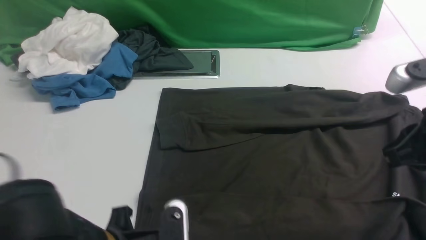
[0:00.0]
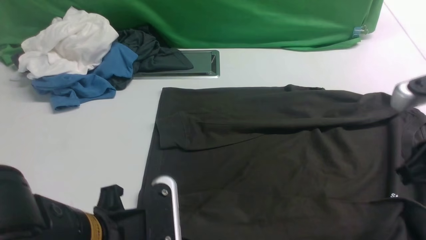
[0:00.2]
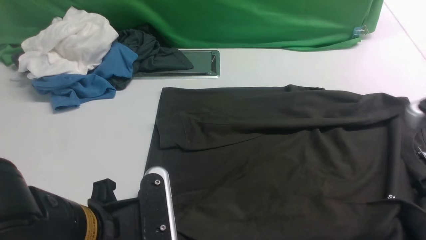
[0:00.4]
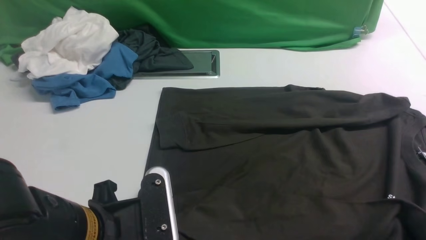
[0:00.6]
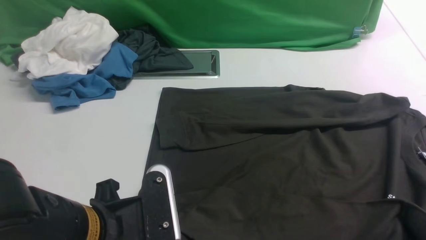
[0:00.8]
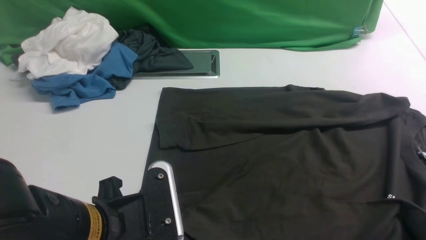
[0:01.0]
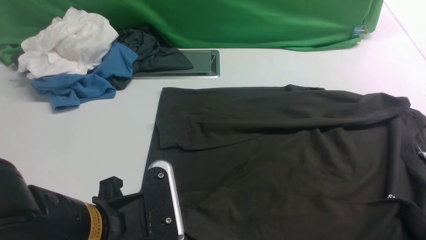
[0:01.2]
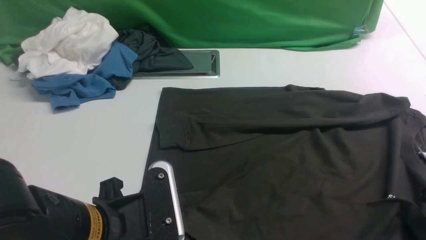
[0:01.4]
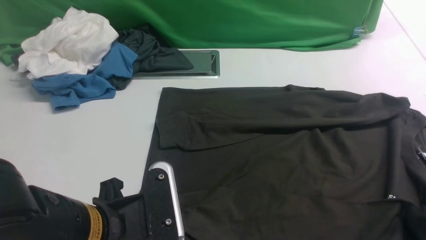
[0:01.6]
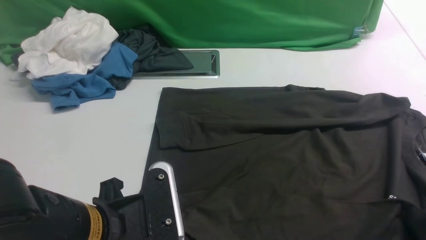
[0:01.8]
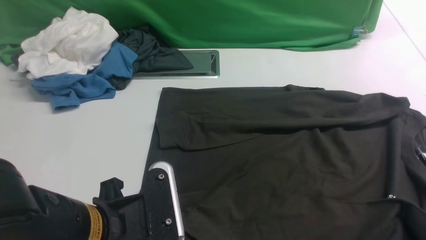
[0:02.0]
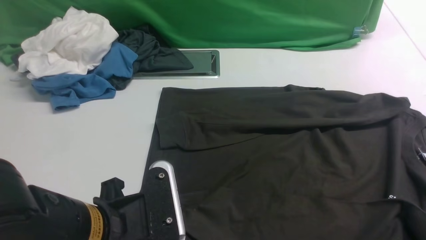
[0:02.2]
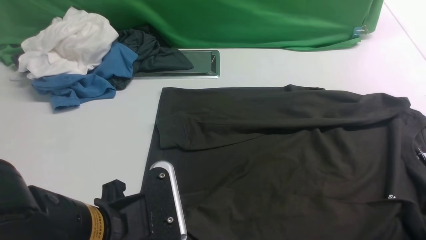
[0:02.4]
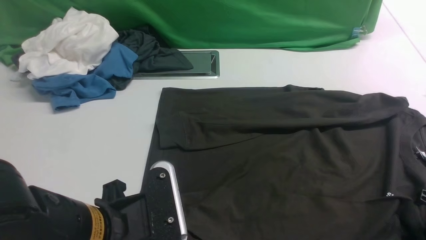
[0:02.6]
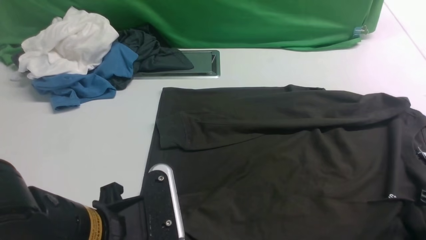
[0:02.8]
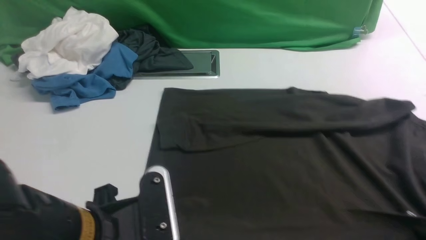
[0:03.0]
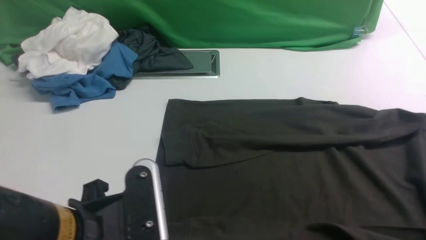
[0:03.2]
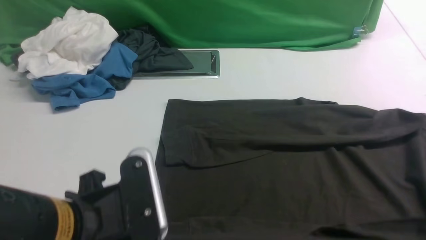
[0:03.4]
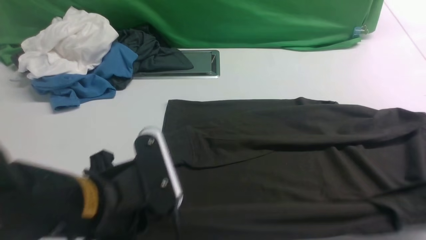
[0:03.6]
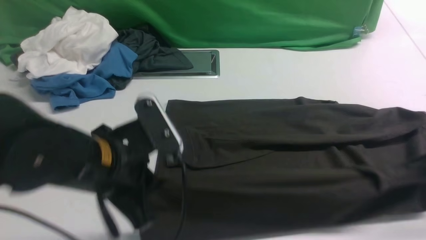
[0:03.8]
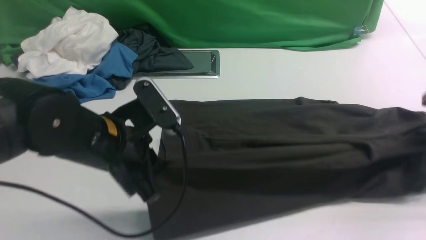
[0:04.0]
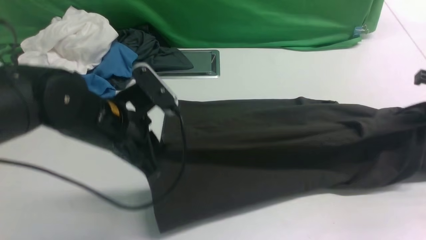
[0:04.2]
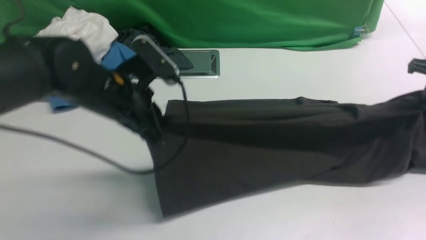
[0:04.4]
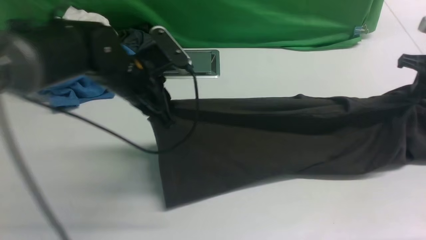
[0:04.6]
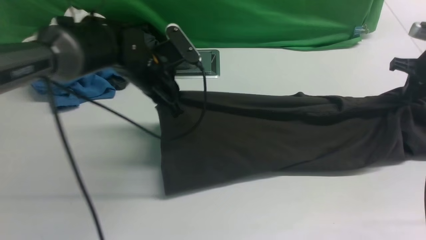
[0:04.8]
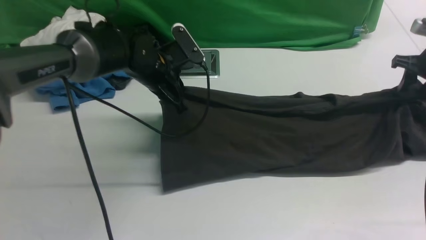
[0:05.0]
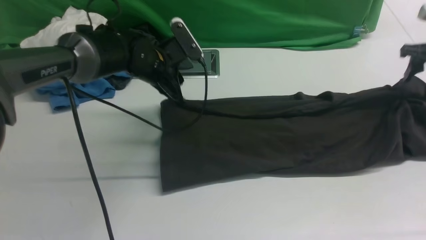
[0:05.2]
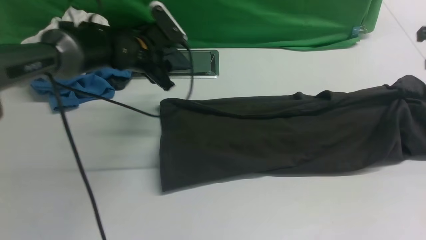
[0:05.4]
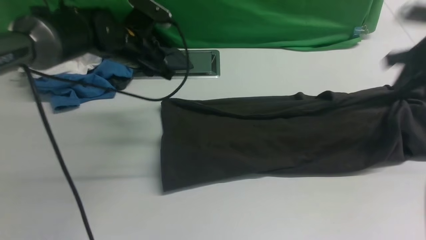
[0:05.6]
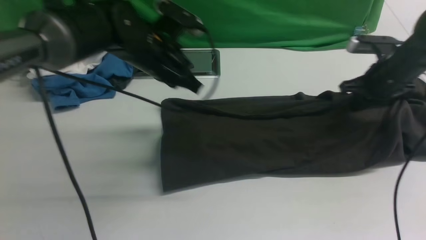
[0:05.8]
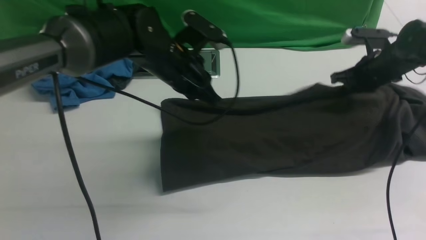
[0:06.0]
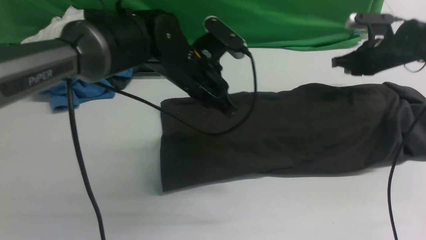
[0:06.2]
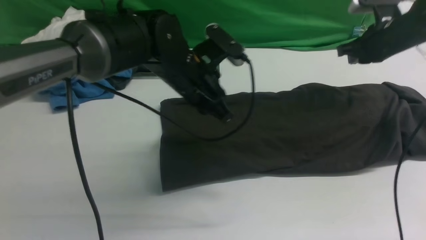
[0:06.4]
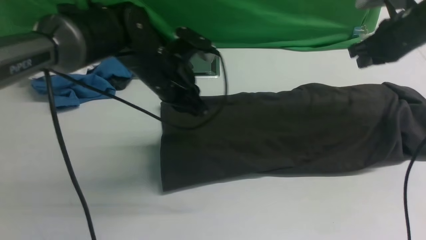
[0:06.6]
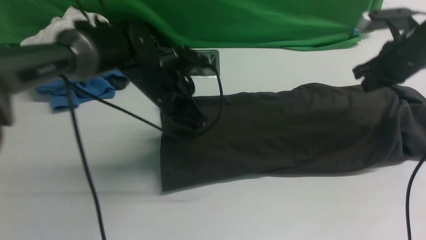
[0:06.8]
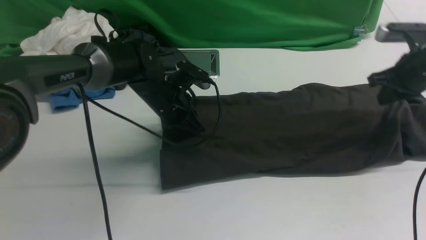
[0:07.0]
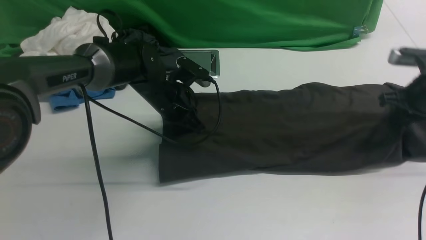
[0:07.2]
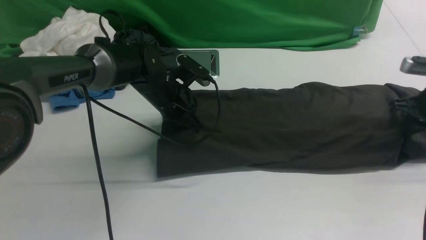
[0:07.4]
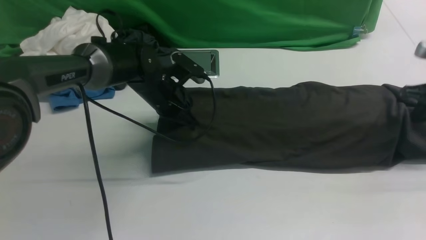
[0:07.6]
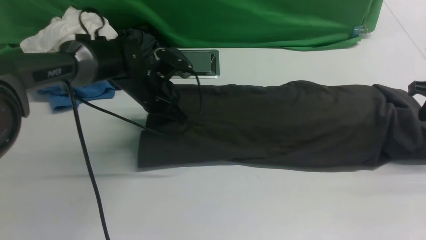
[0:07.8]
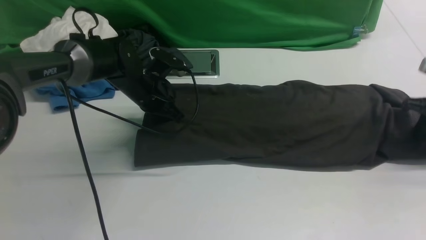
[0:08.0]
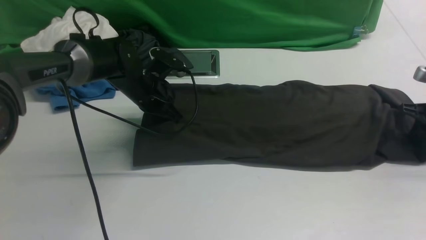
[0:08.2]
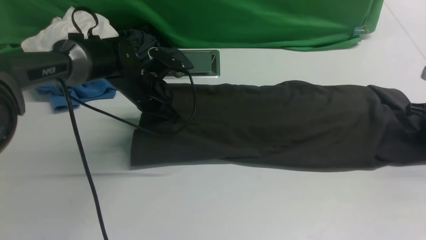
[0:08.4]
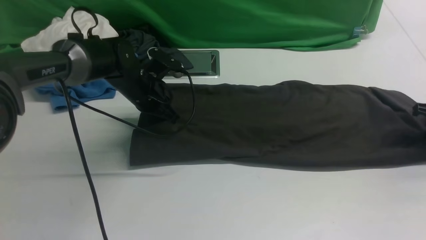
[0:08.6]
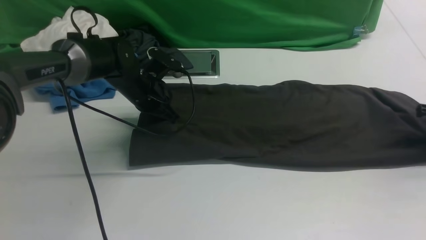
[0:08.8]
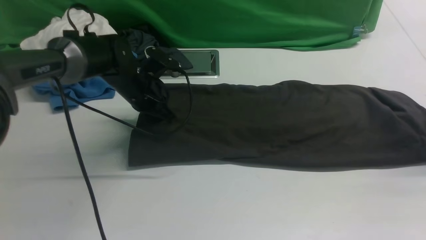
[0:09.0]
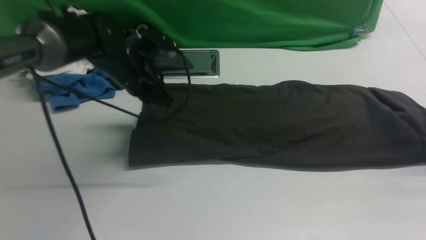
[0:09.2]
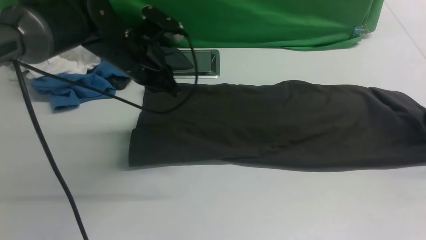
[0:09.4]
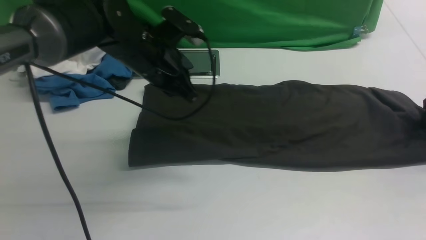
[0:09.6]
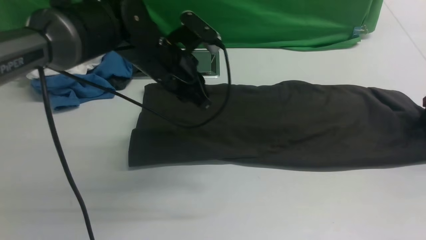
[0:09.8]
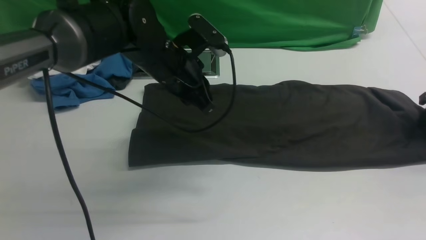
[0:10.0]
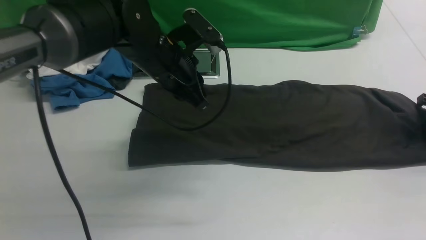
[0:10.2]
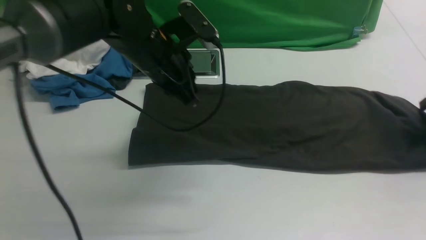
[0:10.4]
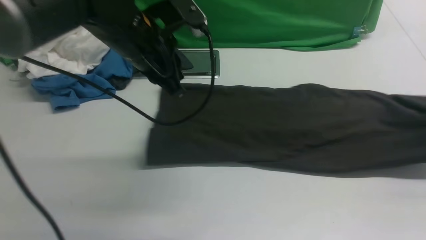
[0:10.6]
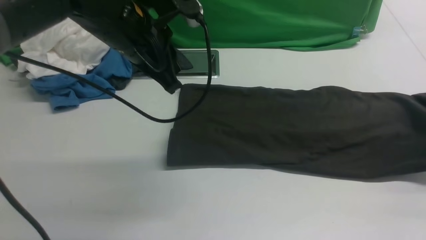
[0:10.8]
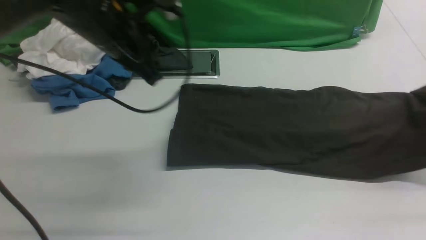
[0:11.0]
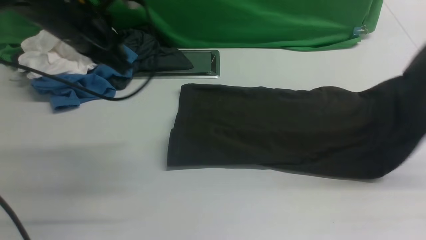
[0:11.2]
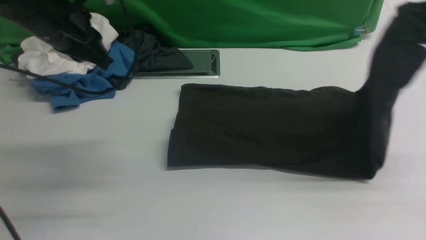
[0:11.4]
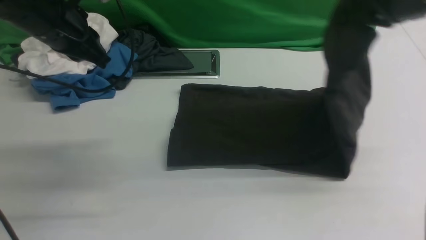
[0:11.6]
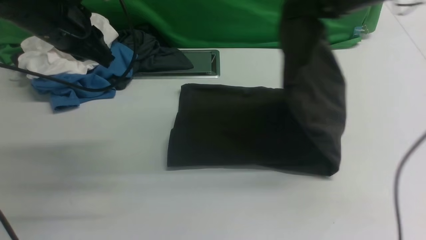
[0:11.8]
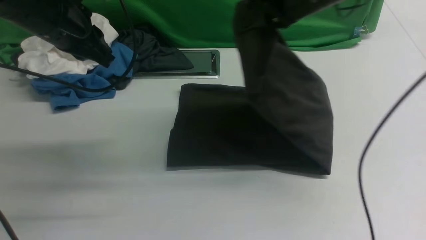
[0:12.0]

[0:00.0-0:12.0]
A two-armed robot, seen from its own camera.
Step, 0:00.0 to 0:03.4: use both arms simultaneously to clamp the lower edge of the clothing fabric.
Step, 0:03.6 to 0:06.6: use both arms to drag the lower edge of the fabric forward and fold it over the upper edge.
Step, 0:06.8 to 0:10.6: use the right arm to clamp the right edge of the fabric.
0:00.0 to 0:01.6: The right gripper travels downward and to the right by some 15 cm, and opens up.
0:01.6 to 0:03.0: The right gripper closes up.
0:03.0 to 0:04.4: Both grippers move forward, approximately 20 cm.
0:04.4 to 0:06.0: The right gripper shifts roughly 15 cm to the left, forward and downward, and opens, then closes once more, while the left gripper goes approximately 10 cm forward and to the right, and opens, then closes once more.
0:06.0 to 0:07.6: The right gripper goes approximately 15 cm backward and to the right. The left gripper goes roughly 10 cm downward and to the left.
0:07.6 to 0:09.0: The right gripper travels to the right by roughly 5 cm, and opens up.
0:09.0 to 0:10.4: The right gripper opens, then closes once more, while the left gripper travels upward, backward and to the right by about 15 cm.
0:10.4 to 0:12.0: The right gripper shifts approximately 40 cm to the left and upward, while the left gripper heads to the left, covering roughly 10 cm.

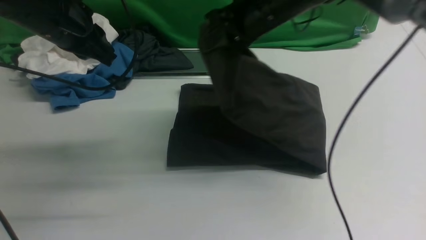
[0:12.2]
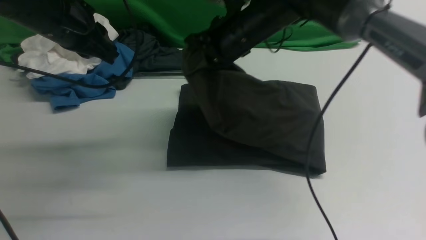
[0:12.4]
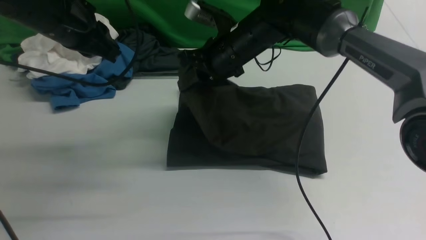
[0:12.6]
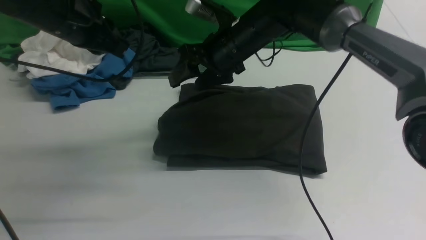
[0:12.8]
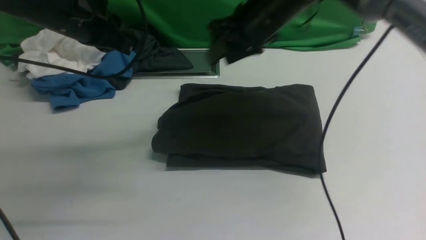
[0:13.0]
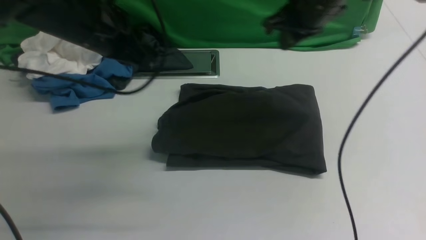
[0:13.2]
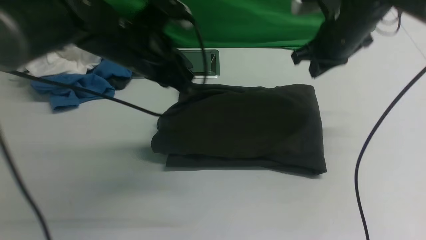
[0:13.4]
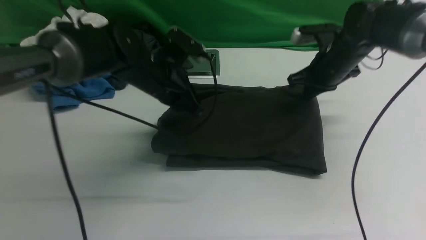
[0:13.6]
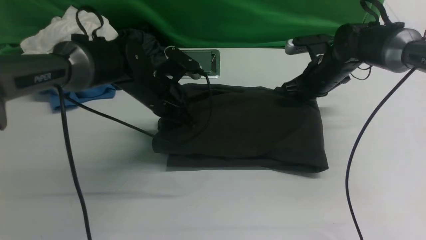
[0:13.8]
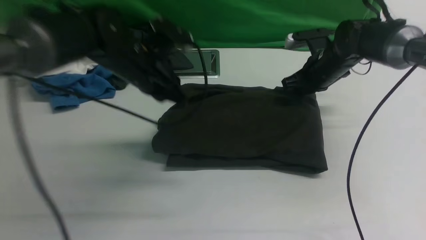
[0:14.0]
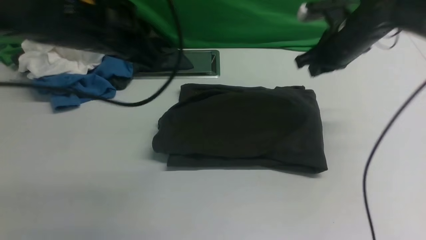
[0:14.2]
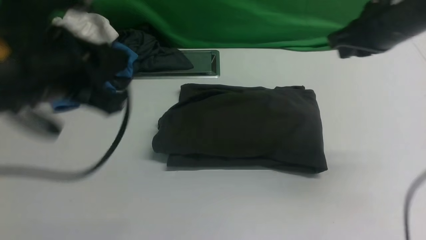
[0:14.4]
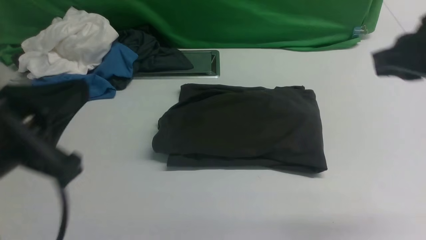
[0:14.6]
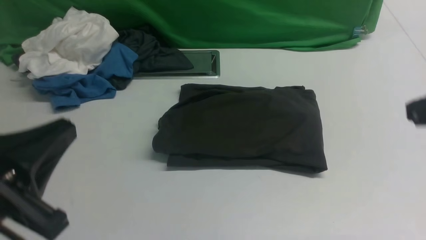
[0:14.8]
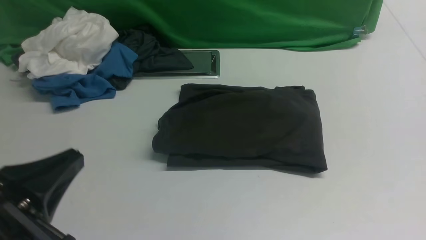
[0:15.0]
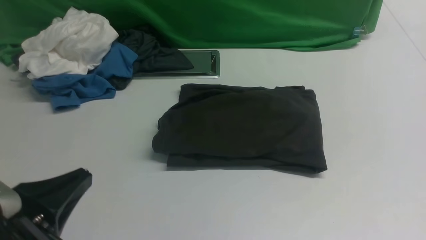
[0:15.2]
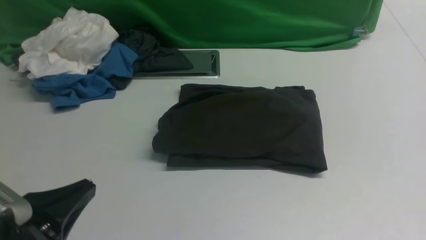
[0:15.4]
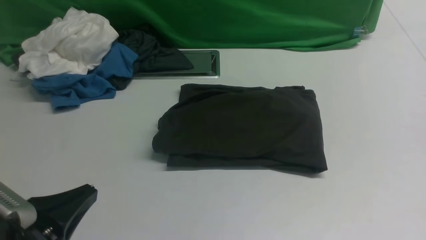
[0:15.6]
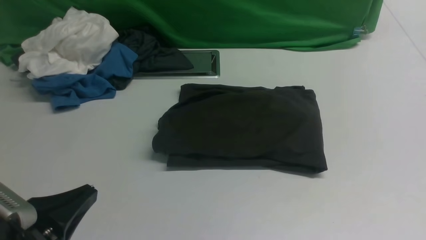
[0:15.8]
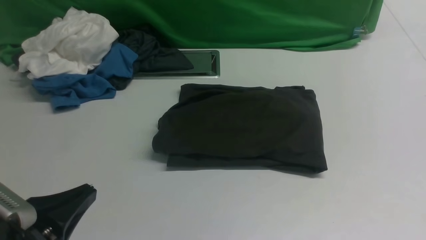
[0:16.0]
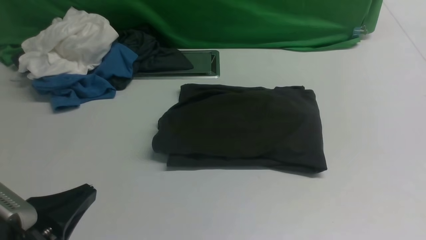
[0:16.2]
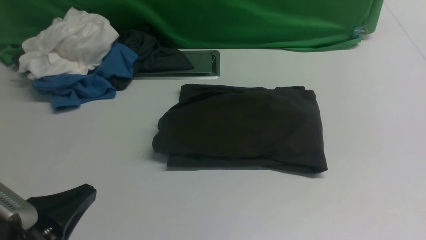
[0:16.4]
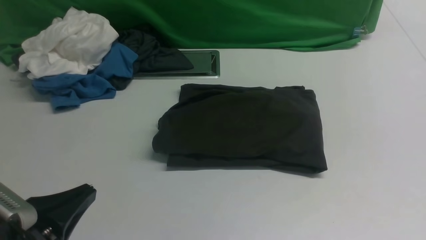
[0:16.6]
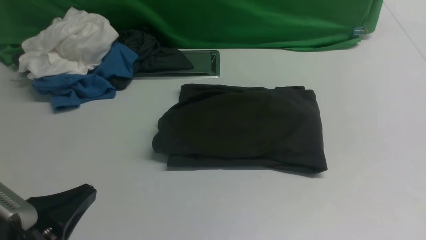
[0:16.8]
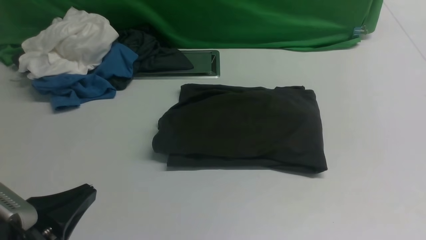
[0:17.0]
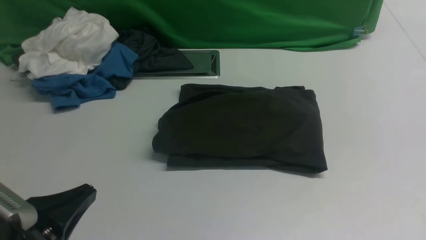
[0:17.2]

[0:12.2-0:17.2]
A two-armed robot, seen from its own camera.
0:12.2 to 0:13.8: Both grippers travel together downward and to the right, about 15 cm. The right gripper opens, then closes once more.
0:13.8 to 0:15.6: The grippers both shift backward by some 35 cm.
